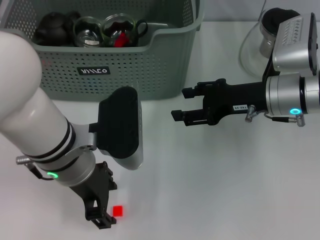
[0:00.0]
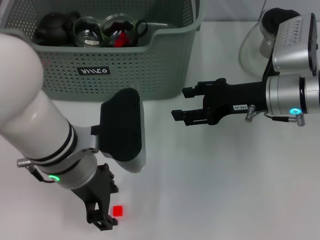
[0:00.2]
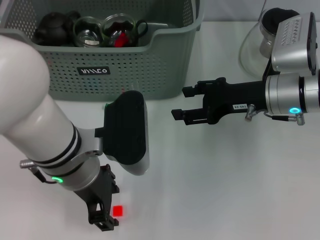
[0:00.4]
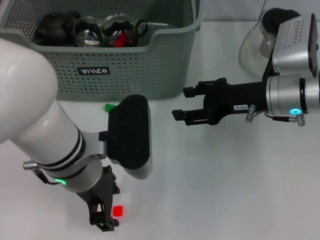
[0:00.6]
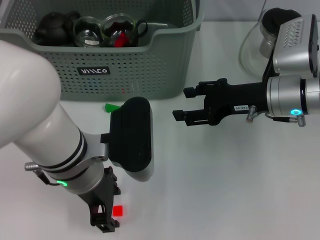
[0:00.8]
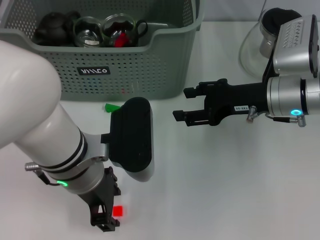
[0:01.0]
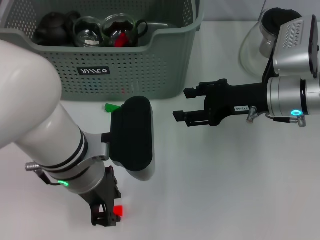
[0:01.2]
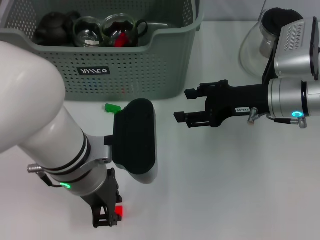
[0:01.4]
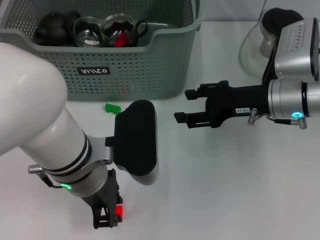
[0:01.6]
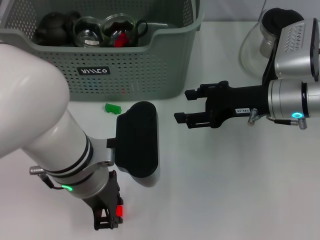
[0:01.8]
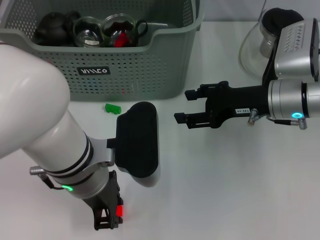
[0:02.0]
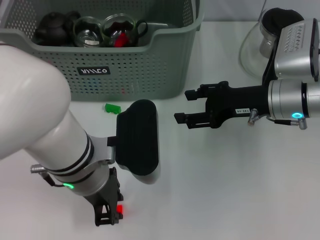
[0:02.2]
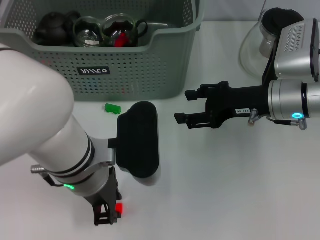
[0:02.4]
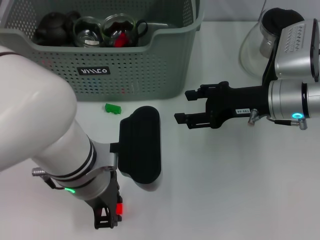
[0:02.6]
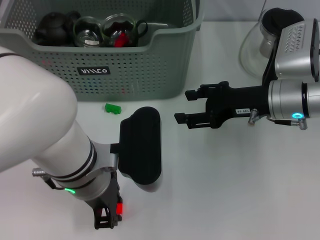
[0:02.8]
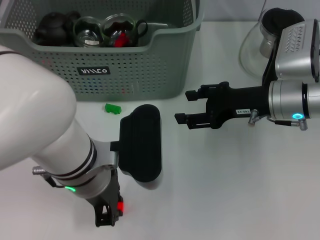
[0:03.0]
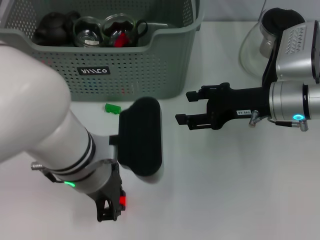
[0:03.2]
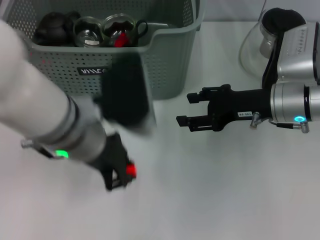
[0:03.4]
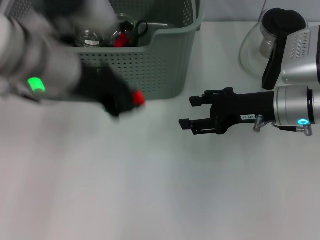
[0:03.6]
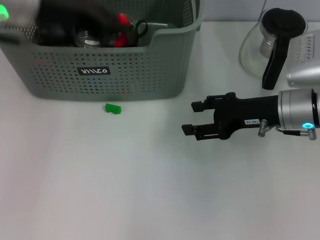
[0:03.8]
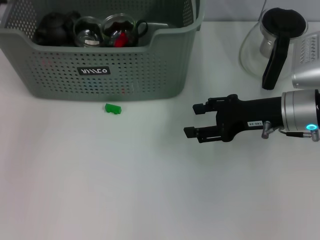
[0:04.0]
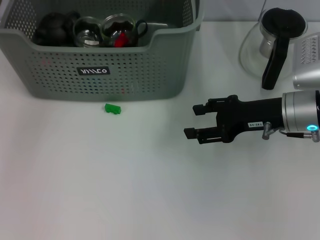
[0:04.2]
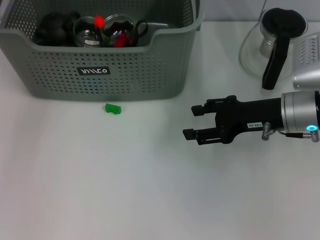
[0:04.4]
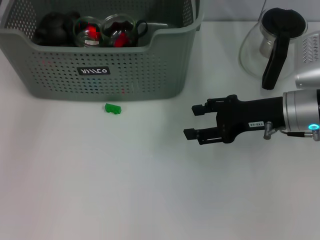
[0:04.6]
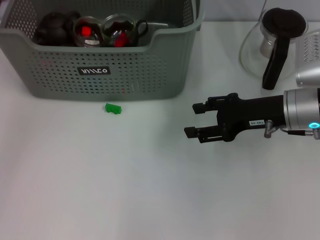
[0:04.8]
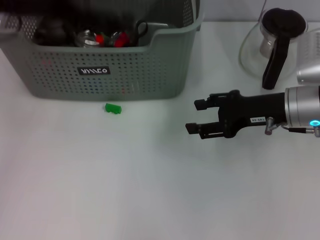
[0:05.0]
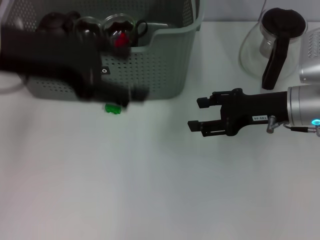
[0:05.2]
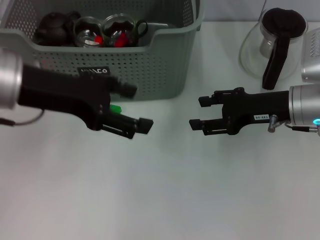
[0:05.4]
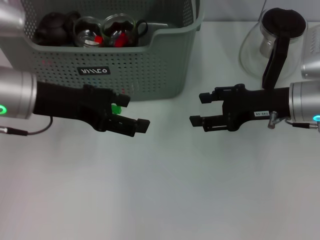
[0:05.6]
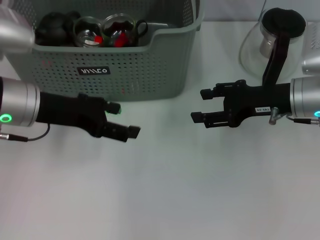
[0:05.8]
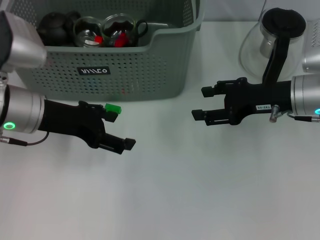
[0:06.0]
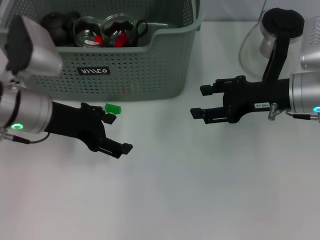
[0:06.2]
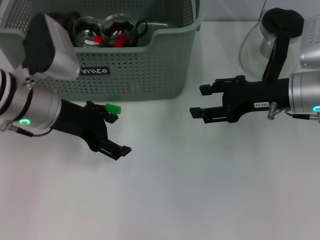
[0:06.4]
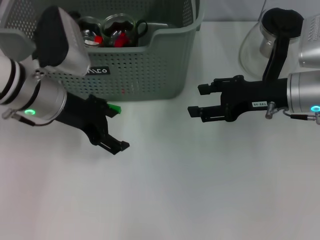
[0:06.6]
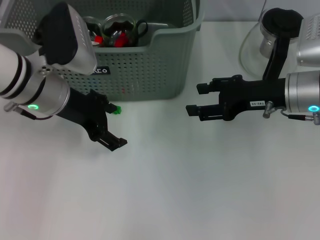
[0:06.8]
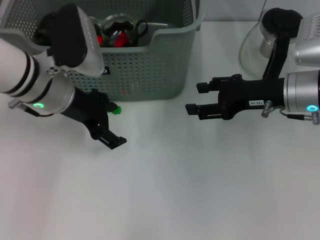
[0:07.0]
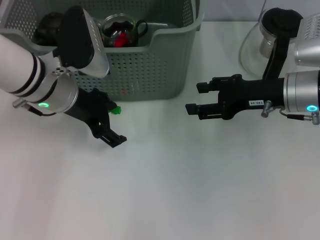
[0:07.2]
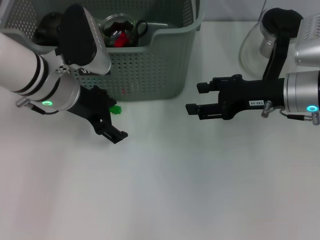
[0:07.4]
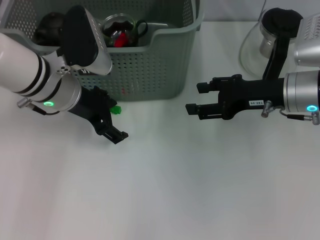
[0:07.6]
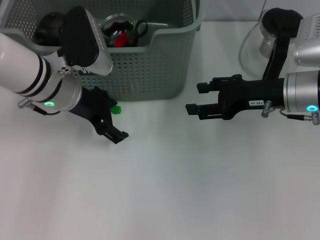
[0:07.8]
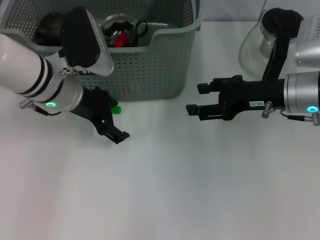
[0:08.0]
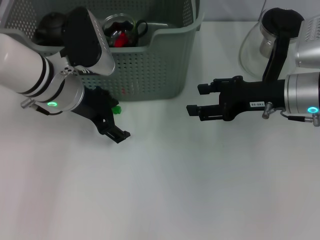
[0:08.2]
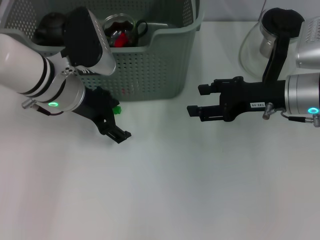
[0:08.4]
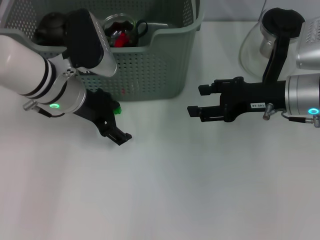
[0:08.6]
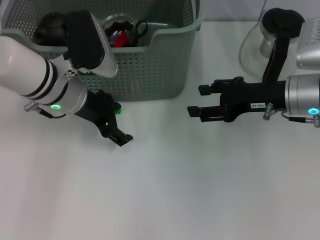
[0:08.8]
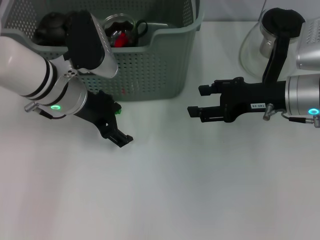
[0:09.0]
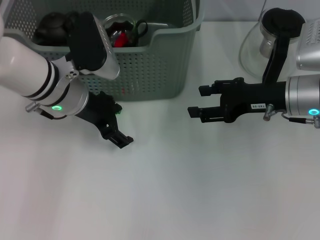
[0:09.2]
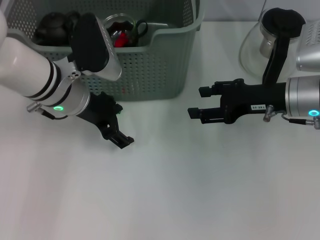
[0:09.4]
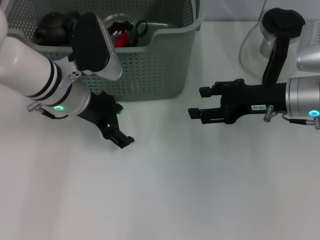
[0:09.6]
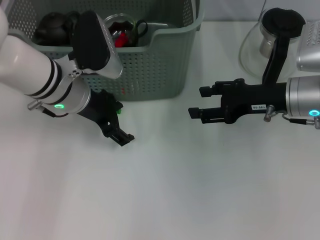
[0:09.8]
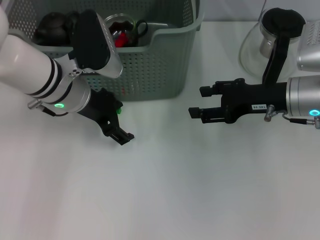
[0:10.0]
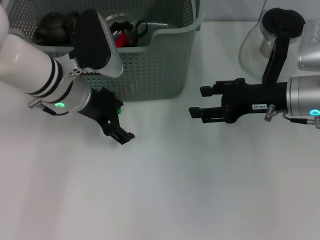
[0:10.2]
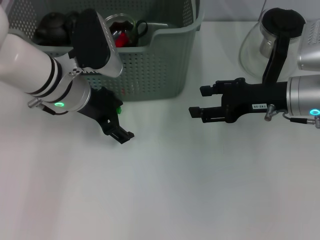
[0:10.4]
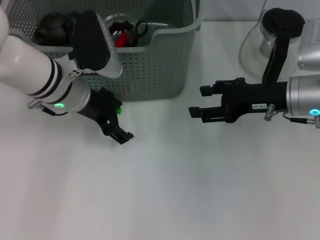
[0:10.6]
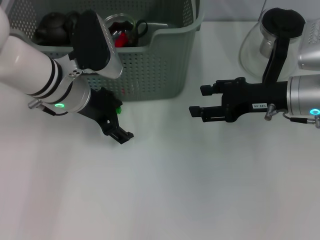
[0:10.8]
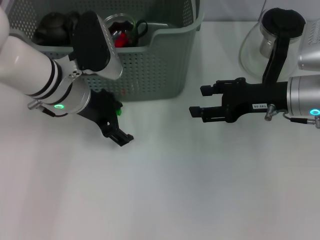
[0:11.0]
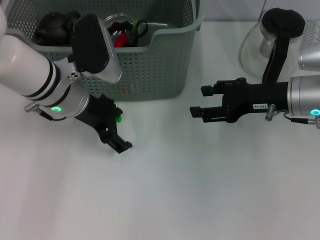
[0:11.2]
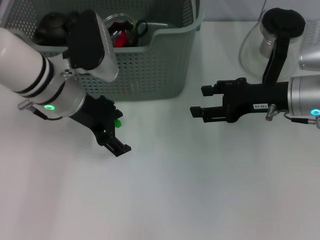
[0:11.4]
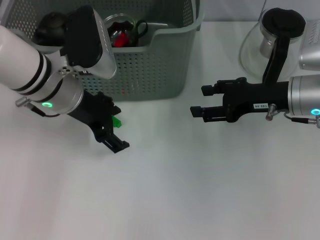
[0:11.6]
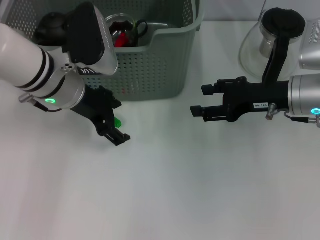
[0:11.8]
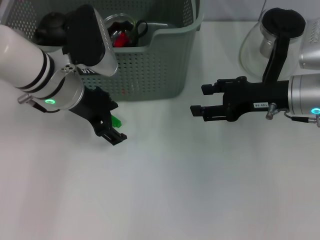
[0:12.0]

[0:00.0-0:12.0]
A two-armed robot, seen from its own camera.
Task of the whole recording: pick up the teacup on the table and place it into the storage bin, pick up the block on the table and place it into the storage bin.
Step, 0:00.0 to 0:03.0: Grasp the orange block with left gripper.
Step, 0:03.2 to 0:04.8: Place the orange block in the storage box with left gripper.
0:00.0 to 0:01.6: The left gripper closes its fingers.
0:01.6 to 0:03.0: Neither gripper changes place.
0:03.0 to 0:04.4: The left gripper heads forward, to the left and upward, covering approximately 25 cm.
0:04.4 to 0:06.0: The left gripper is displaced backward and downward by roughly 15 cm, and opens its fingers.
0:06.0 to 0:07.6: The left gripper moves forward, about 5 cm.
0:07.6 to 0:09.0: Neither gripper changes place.
0:09.0 to 0:10.4: Both grippers stay put.
0:10.4 to 0:12.0: The grippers make only small movements.

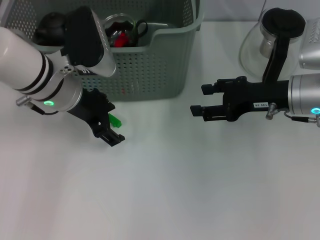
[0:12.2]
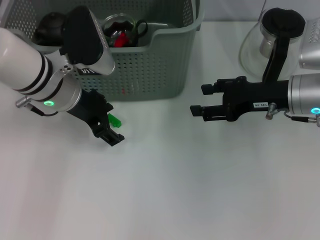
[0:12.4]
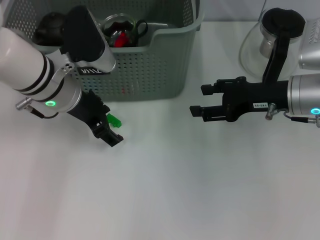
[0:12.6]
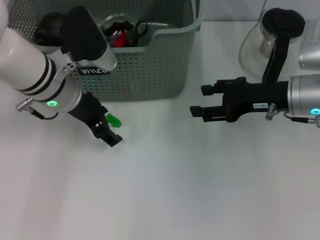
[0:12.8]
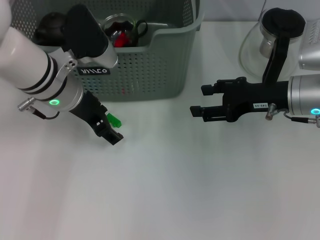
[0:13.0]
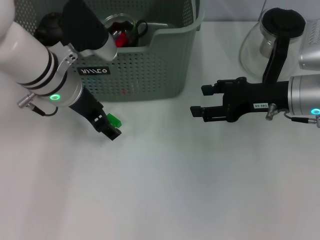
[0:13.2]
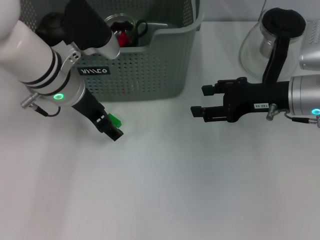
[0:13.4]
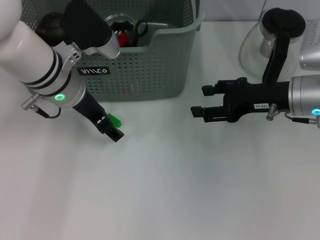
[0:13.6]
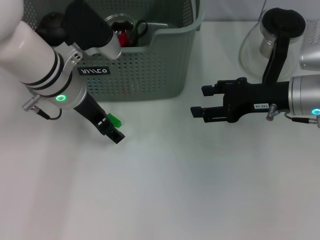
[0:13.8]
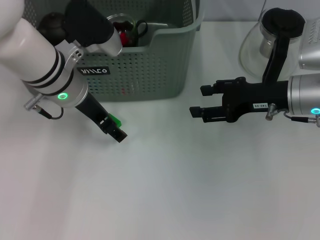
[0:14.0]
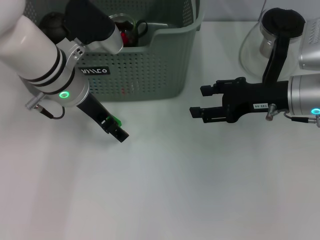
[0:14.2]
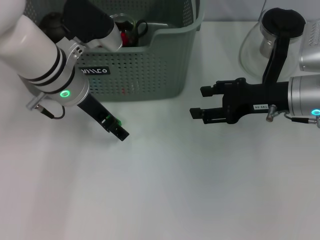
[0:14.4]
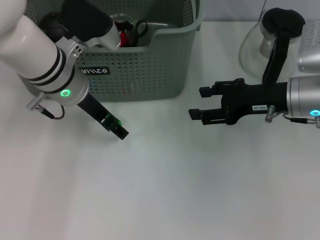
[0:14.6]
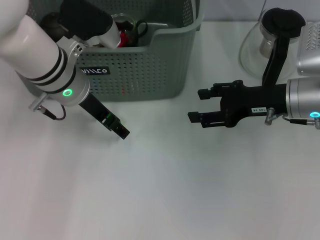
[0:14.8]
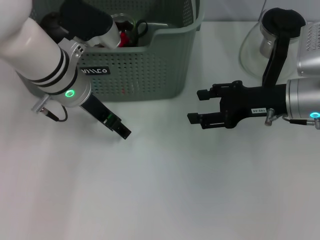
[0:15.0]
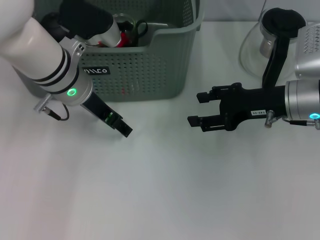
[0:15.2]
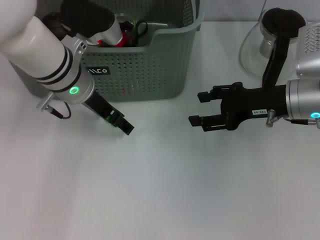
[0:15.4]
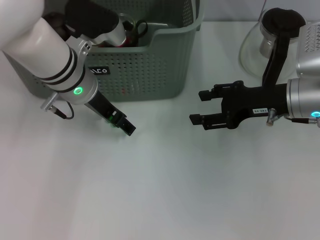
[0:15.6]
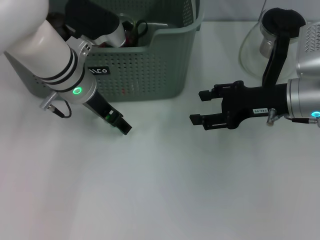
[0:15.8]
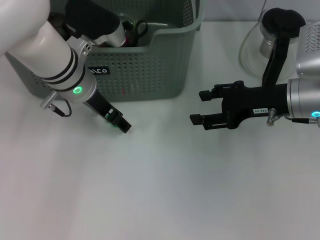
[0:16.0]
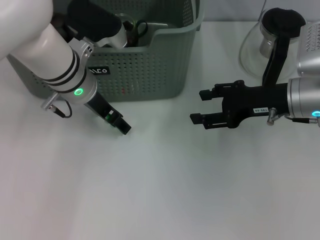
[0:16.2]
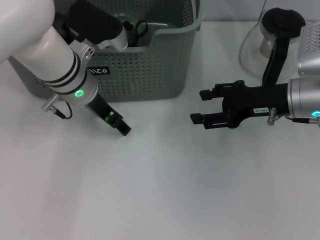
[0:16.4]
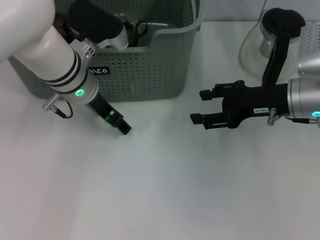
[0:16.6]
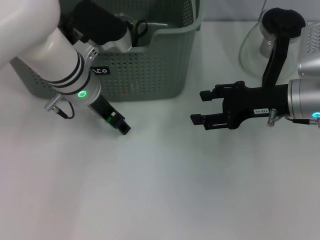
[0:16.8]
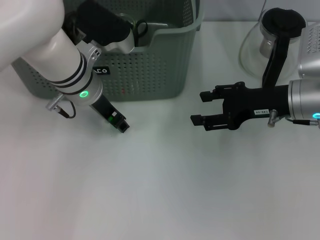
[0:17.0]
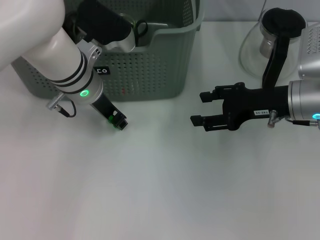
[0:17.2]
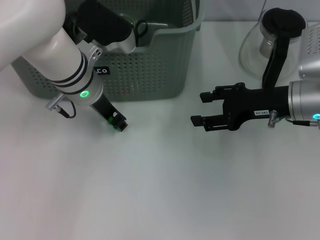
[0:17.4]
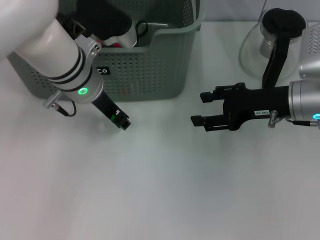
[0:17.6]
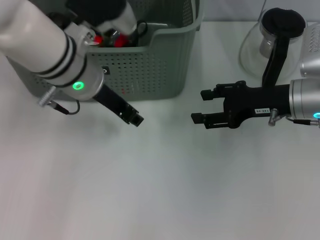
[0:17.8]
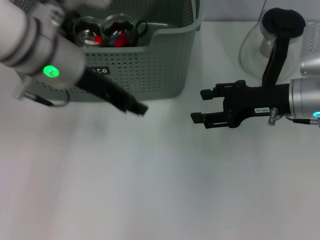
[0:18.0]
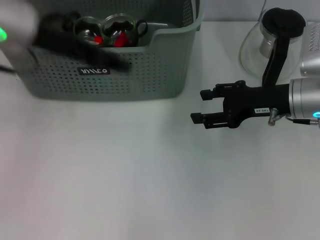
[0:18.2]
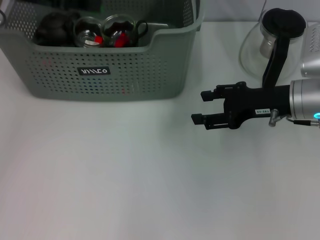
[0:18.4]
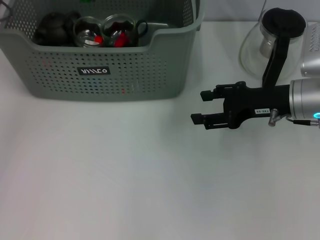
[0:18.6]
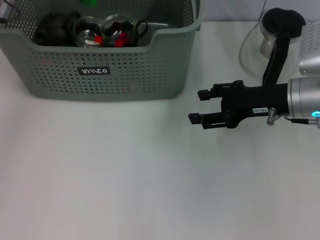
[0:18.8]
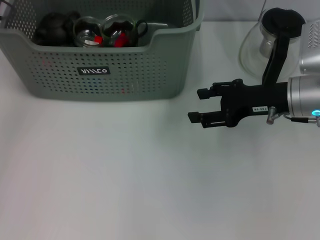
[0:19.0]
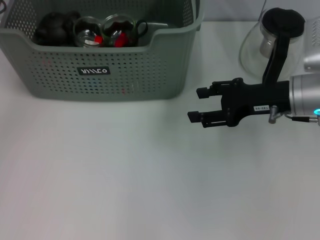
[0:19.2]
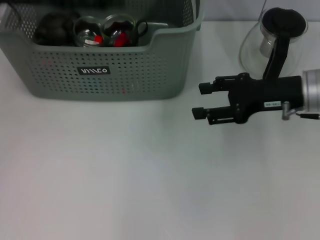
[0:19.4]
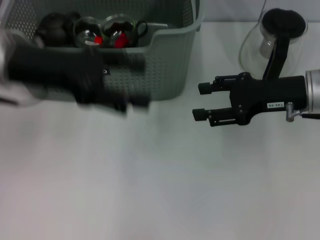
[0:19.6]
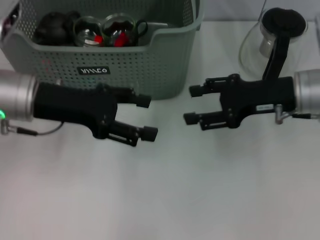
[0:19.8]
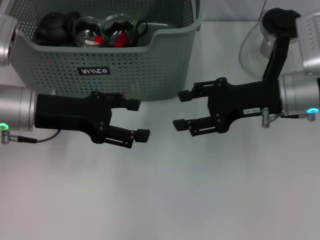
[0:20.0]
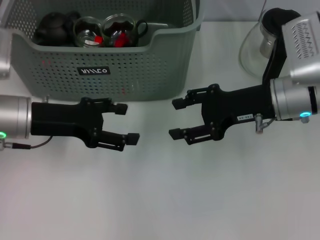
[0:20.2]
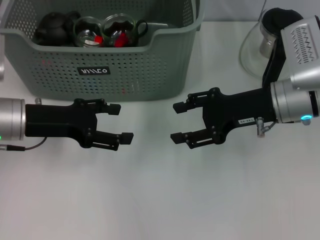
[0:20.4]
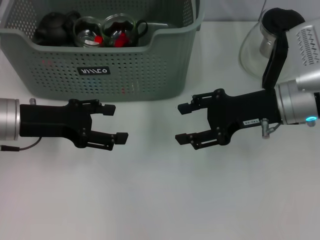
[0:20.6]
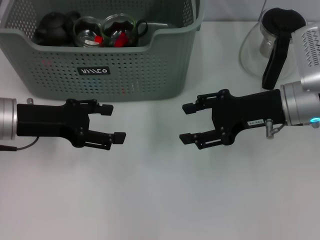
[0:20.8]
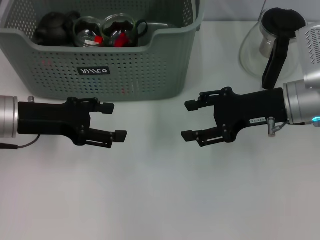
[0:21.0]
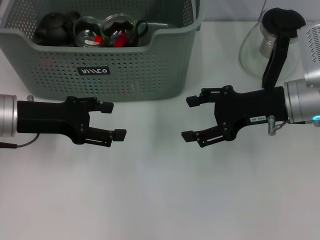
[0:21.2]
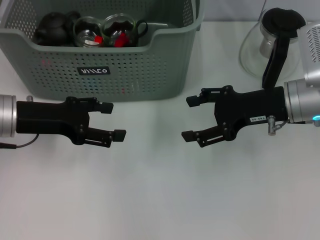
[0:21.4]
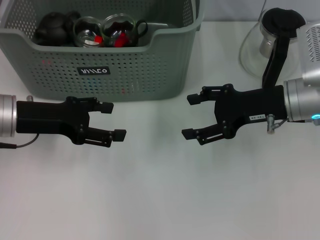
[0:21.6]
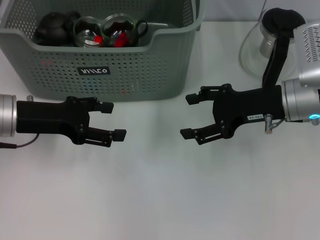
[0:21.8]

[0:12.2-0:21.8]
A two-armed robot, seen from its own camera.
Task of the whole recording: pick up the teacup on the table and place it into the storage bin, pick up the block on the table and place it into the storage bin.
Step, 0:12.2 to 0:17.4: Grasp the green block with left gripper.
Step, 0:17.6 to 0:19.0: Place the green block in the storage box with left gripper.
0:13.8 to 0:17.0: There are only small adjustments of the grippers.
0:17.0 to 0:18.6: The left gripper travels to the left and upward by roughly 20 cm.
0:18.6 to 0:20.2: The left gripper heads downward and backward, covering approximately 15 cm, and opens its fingers.
0:20.2 to 0:21.8: There are only small adjustments of the grippers.
